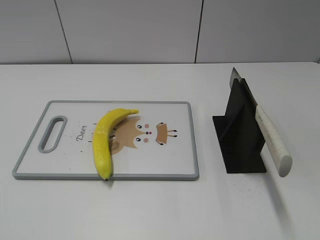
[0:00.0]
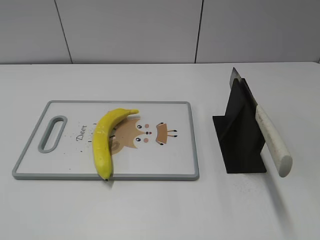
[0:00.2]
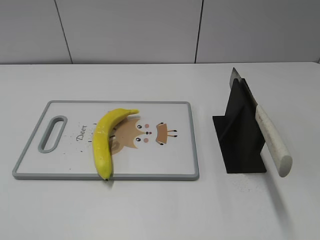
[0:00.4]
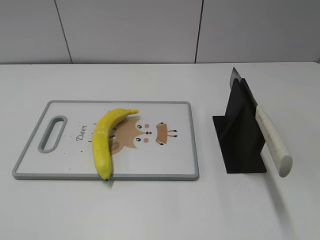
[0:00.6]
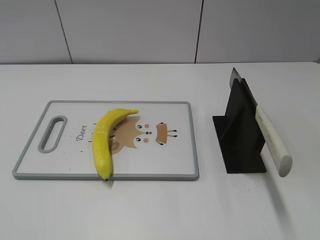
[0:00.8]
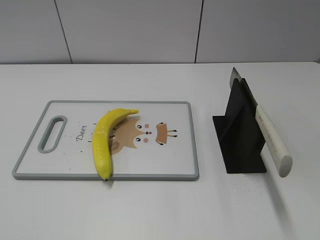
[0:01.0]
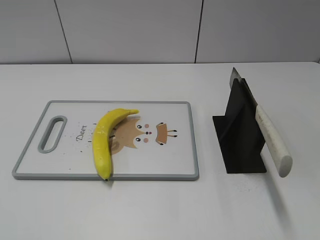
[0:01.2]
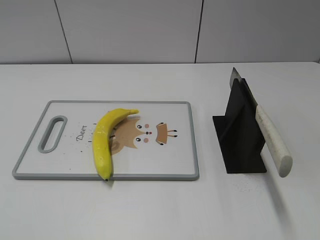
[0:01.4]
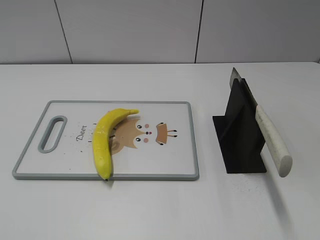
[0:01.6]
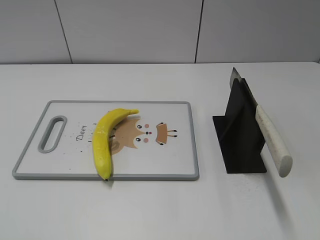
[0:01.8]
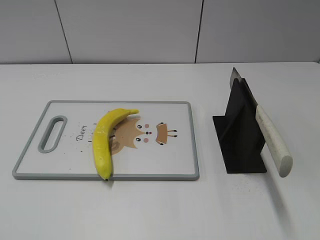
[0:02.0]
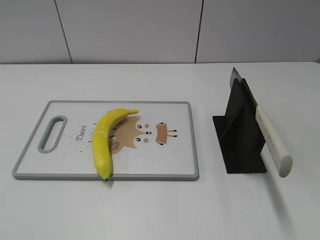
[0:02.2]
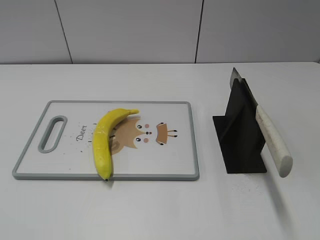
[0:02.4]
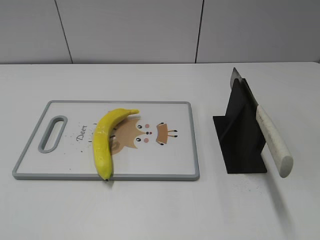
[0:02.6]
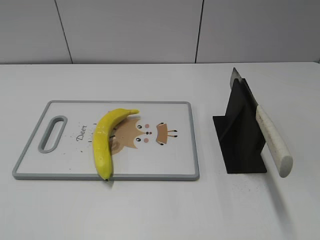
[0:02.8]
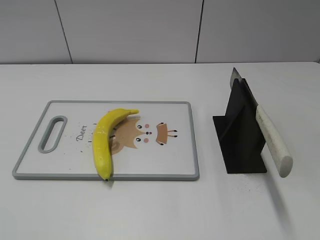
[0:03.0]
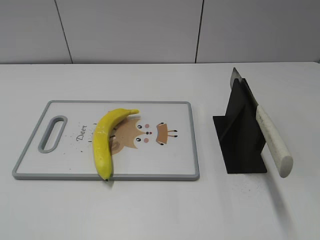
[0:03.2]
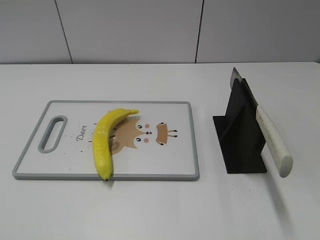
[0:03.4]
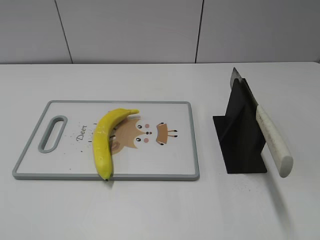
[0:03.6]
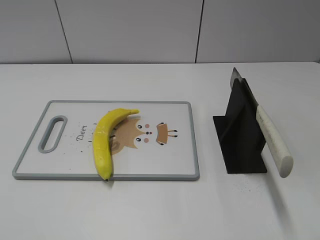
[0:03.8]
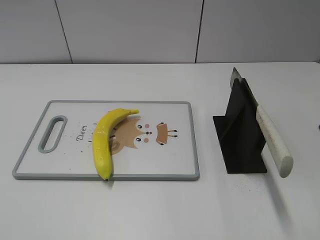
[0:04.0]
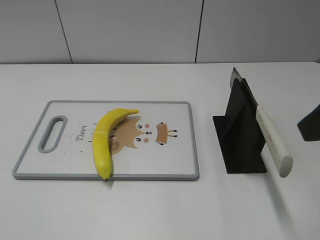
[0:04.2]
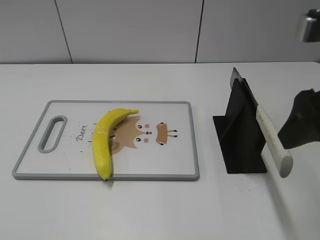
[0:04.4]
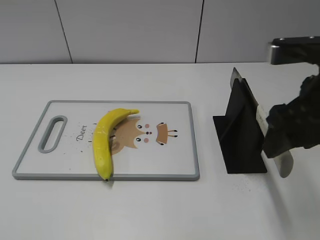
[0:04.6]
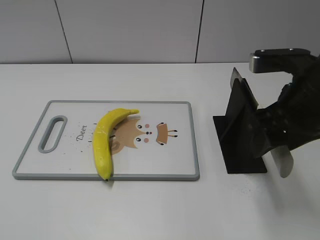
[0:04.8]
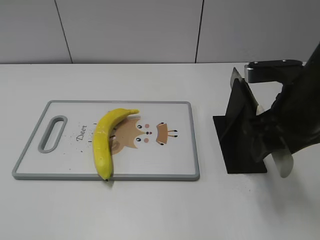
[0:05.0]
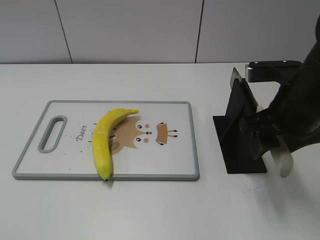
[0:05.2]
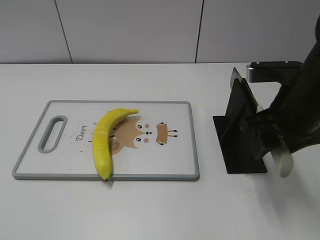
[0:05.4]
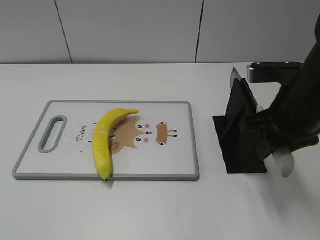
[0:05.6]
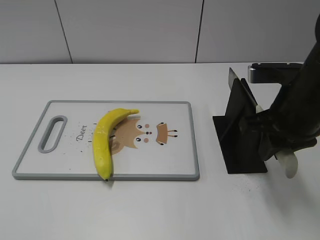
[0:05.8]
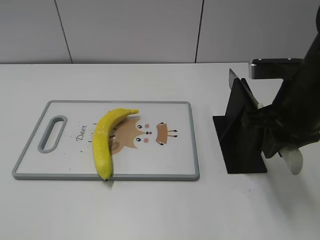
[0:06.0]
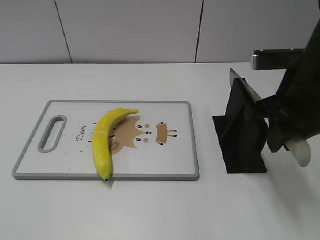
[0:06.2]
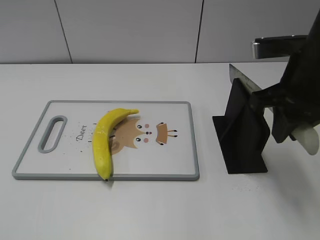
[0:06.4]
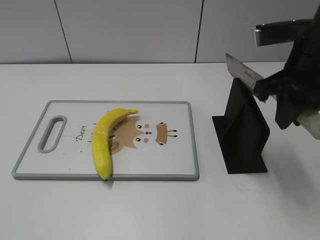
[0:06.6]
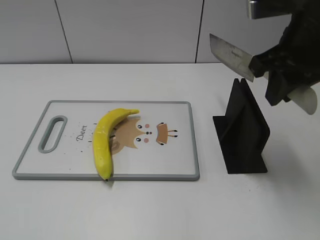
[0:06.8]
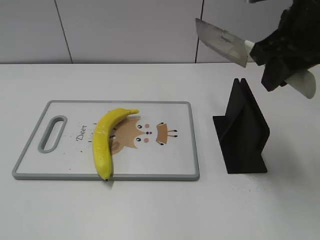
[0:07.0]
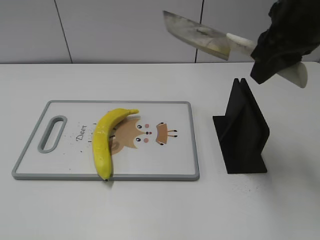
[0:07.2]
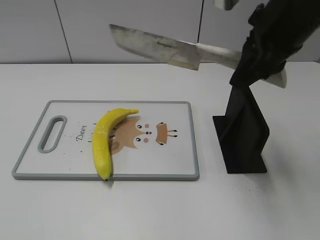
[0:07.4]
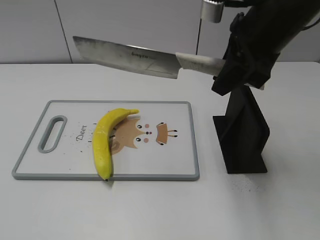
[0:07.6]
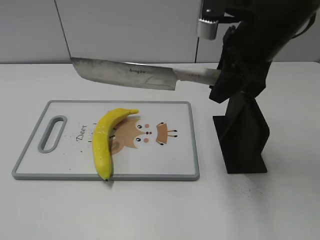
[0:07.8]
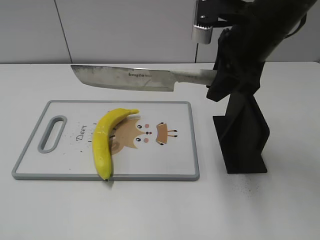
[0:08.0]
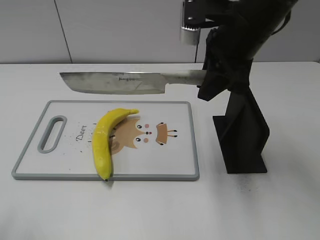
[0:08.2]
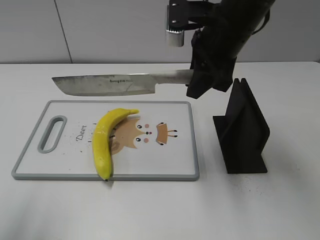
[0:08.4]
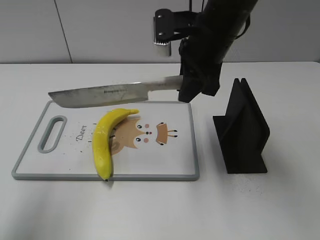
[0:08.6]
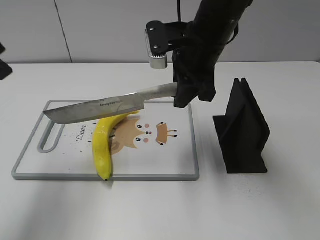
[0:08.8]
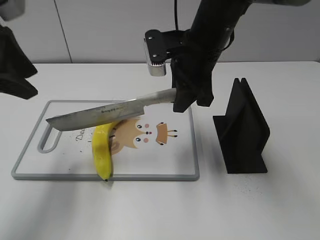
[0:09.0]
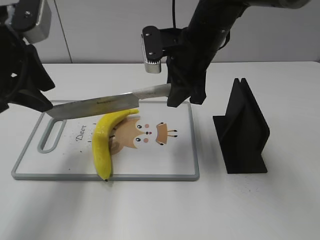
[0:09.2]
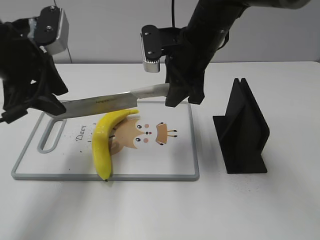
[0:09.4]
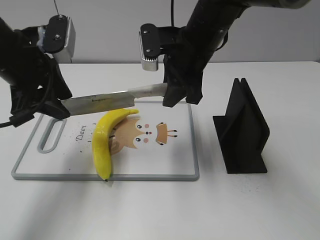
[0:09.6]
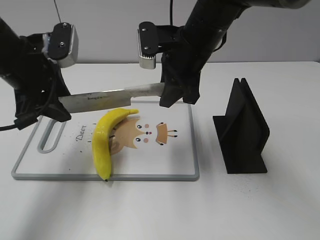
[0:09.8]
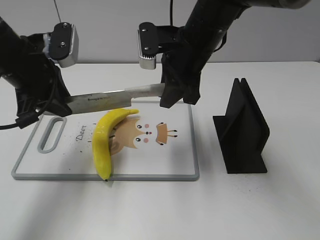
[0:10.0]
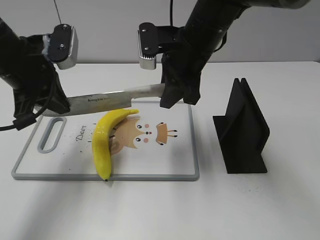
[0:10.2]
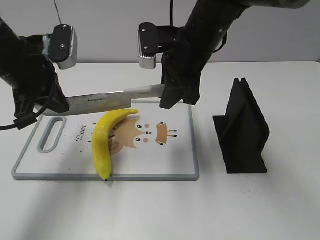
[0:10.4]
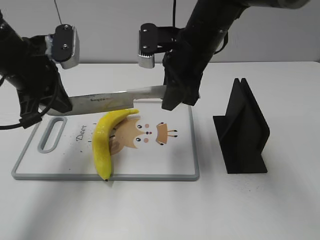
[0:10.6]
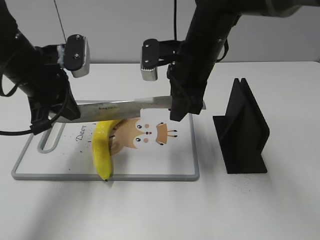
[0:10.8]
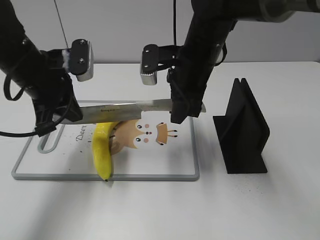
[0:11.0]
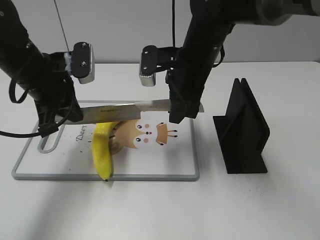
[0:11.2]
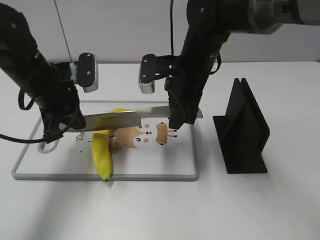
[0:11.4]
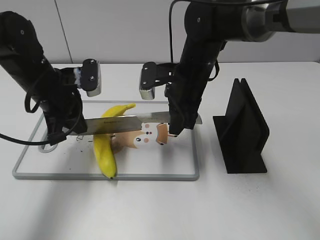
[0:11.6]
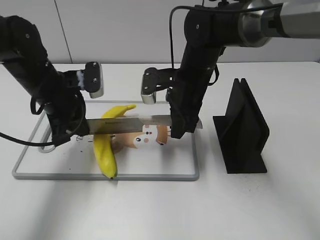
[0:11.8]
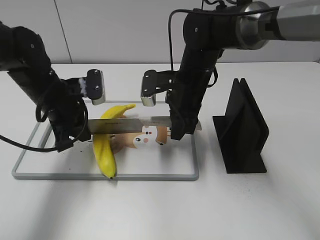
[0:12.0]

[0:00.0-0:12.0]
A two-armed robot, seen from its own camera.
Task of the whole recording: cut plastic banana.
Step, 0:00.0 to 0:07.2: Grab the knife handle with your right hand.
0:03.0 to 0:04.4: The right gripper is displaced forward and to the left by about 15 cm.
0:04.4 to 0:06.0: The right gripper is displaced downward and forward by about 10 cm, and closes its fingers.
0:06.0 to 0:07.6: The right gripper moves upward, about 10 cm.
0:07.6 to 0:09.0: The left gripper is displaced forward by roughly 30 cm, while the right gripper goes approximately 10 cm downward, to the left and forward.
0:09.0 to 0:10.4: The left gripper travels downward by some 5 cm, and closes its fingers.
0:10.4 to 0:12.0: The two grippers go some 10 cm downward.

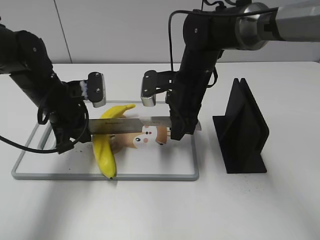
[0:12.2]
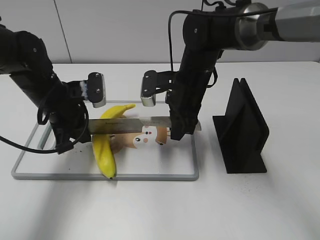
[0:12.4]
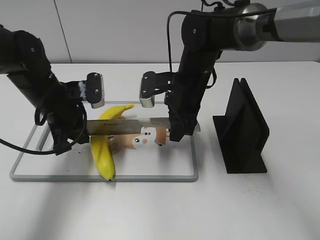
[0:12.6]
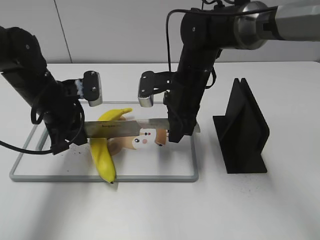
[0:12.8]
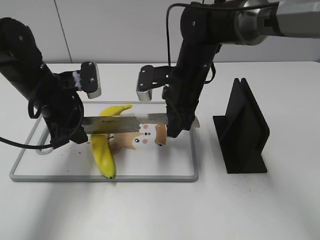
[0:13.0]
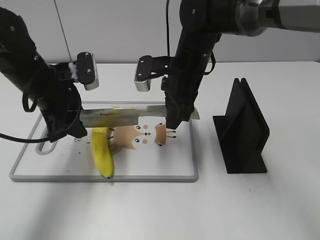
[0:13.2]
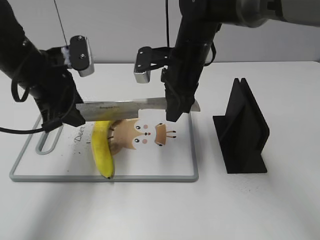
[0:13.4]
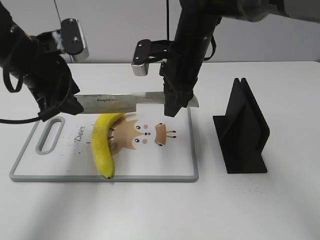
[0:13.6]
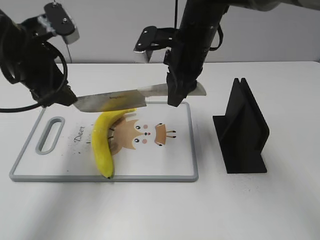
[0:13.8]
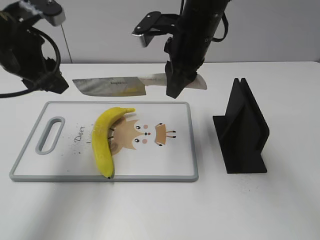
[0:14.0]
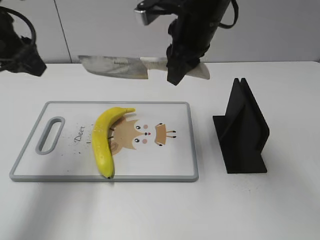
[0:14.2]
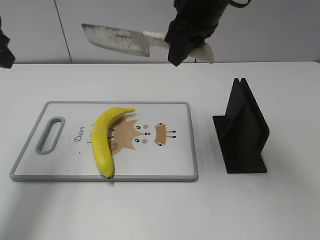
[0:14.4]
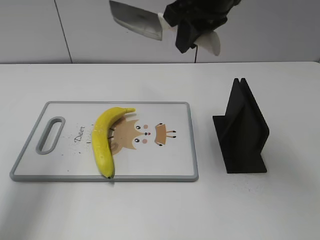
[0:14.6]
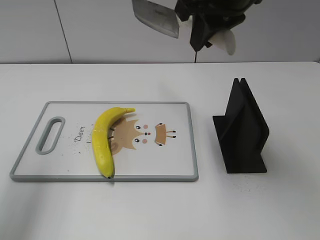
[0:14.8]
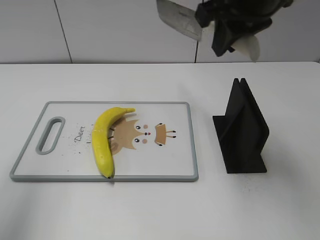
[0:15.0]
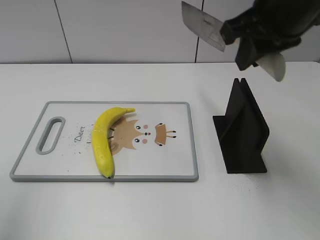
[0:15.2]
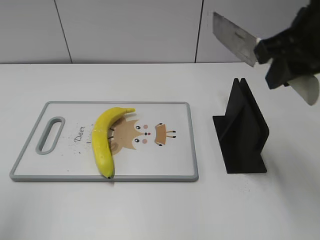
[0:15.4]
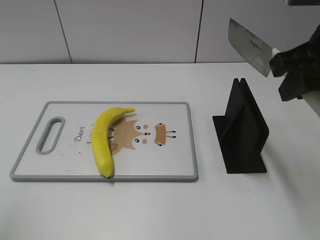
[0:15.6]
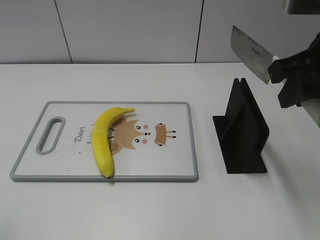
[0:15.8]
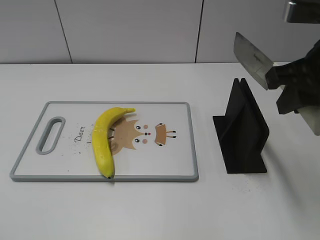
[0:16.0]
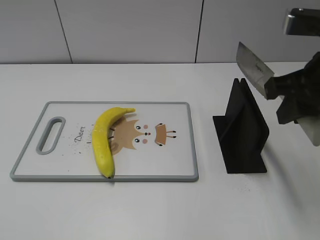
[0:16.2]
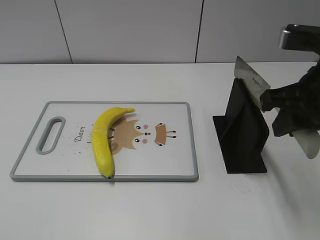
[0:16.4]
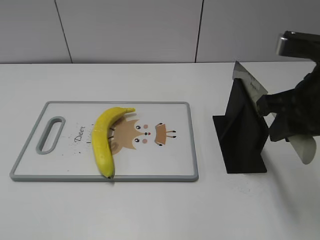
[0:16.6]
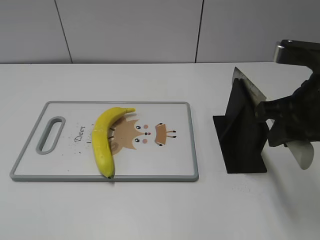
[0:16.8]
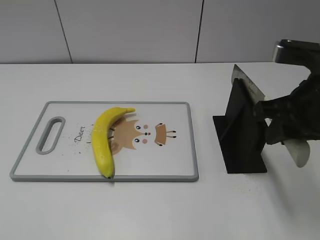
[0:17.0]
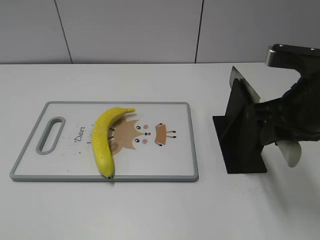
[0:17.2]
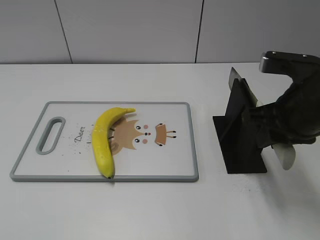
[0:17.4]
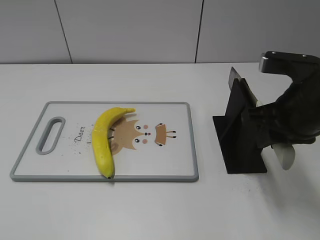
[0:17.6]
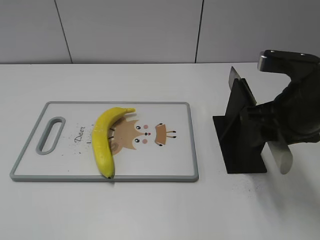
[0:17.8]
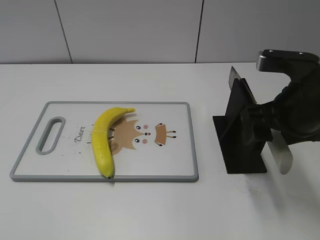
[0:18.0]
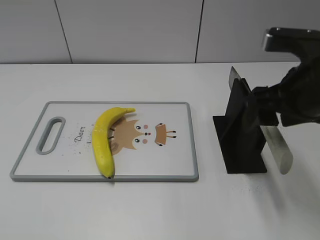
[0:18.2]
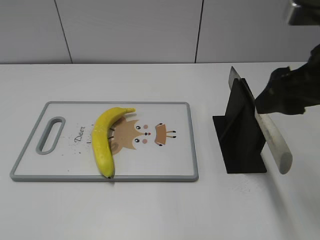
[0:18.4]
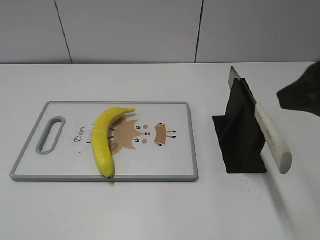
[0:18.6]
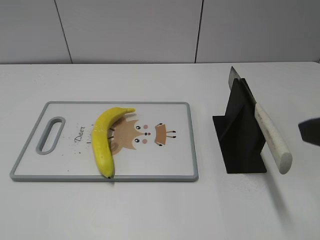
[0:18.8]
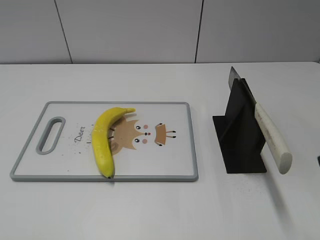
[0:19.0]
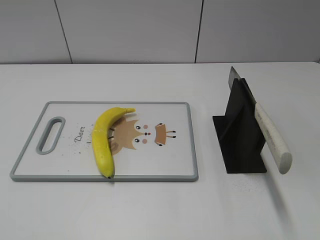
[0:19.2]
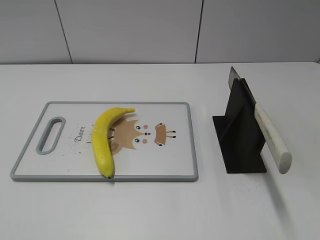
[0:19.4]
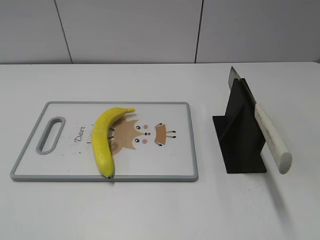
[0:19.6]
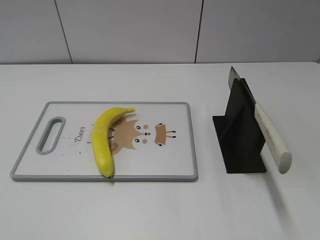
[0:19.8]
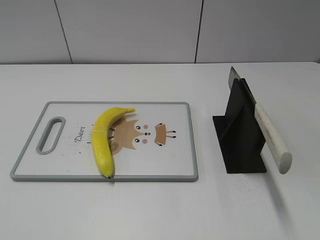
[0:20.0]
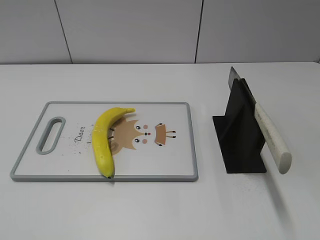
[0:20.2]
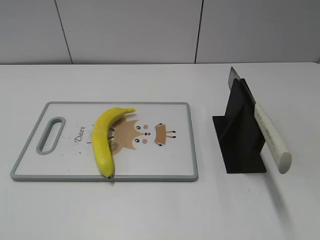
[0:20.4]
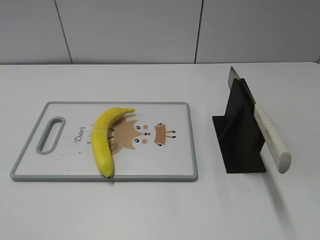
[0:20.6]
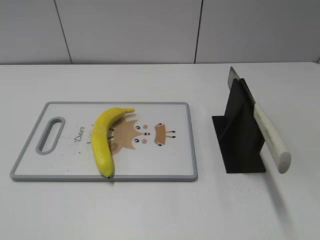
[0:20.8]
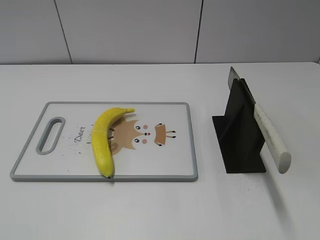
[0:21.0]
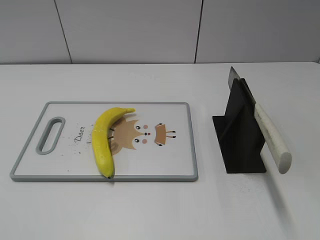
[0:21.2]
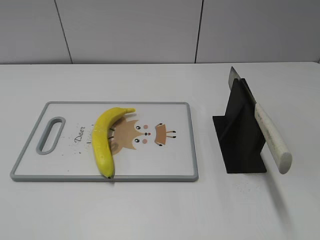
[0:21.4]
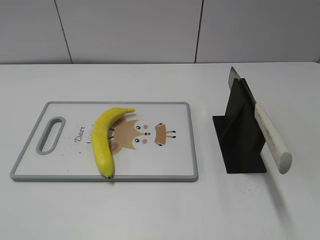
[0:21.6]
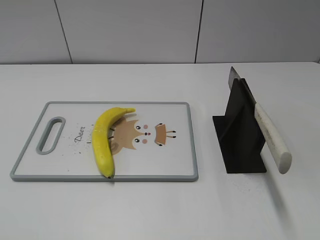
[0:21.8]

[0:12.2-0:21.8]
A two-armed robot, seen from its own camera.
Task of the whole recording: cut plastic banana.
Step, 0:12.8 to 0:16.0: Cut the banana with your right hand.
Step, 0:16.8 to 0:21.8: Place the knife on the storage rack with your right hand.
0:12.2 to 0:13.8: The left gripper heads upward, covering approximately 10 cm, and opens. The right gripper is displaced upward by approximately 10 cm.
0:13.8 to 0:15.4: The left gripper moves backward, upward and to the left, approximately 25 cm. The right gripper goes roughly 20 cm to the right, backward and upward.
0:15.4 to 0:17.0: The right gripper heads downward, covering about 5 cm.
0:17.0 to 0:18.6: The right gripper shifts about 10 cm upward and backward, and opens its fingers.
0:18.6 to 0:20.2: The right gripper goes approximately 20 cm backward and to the right.
